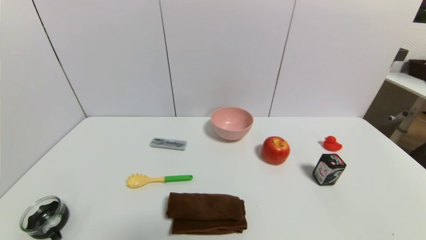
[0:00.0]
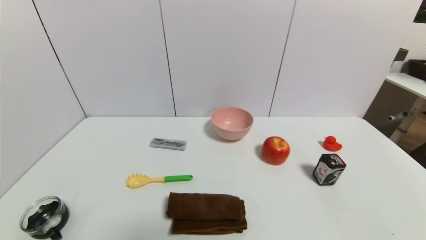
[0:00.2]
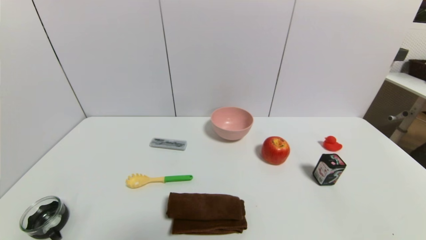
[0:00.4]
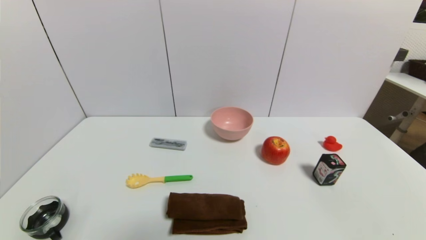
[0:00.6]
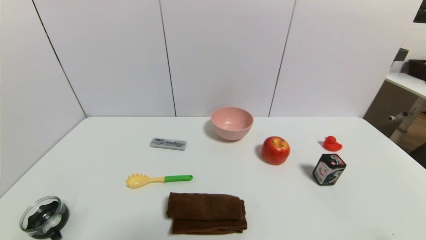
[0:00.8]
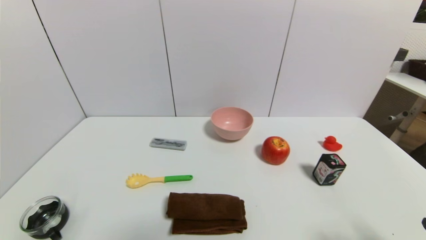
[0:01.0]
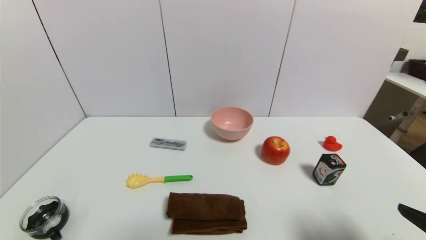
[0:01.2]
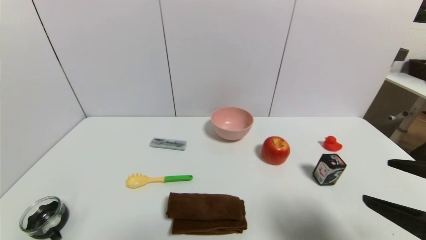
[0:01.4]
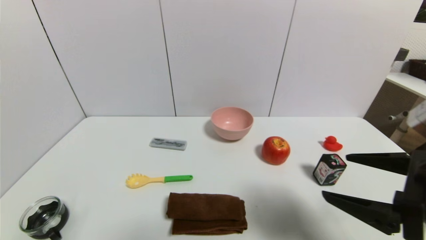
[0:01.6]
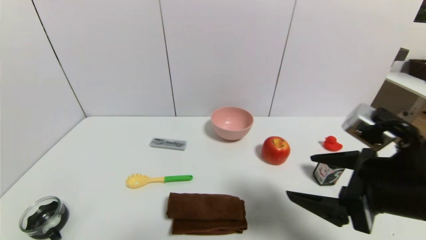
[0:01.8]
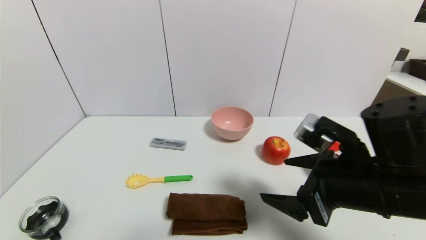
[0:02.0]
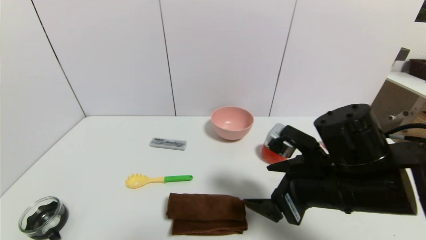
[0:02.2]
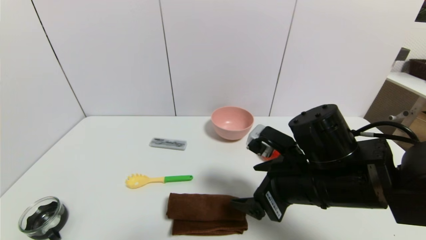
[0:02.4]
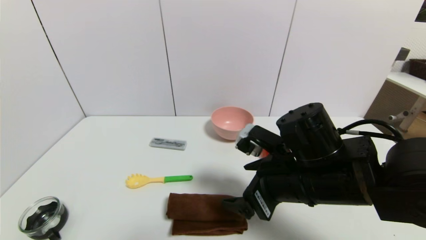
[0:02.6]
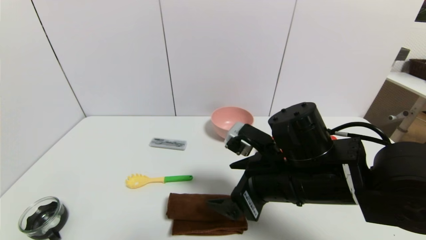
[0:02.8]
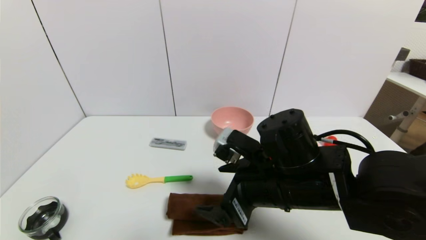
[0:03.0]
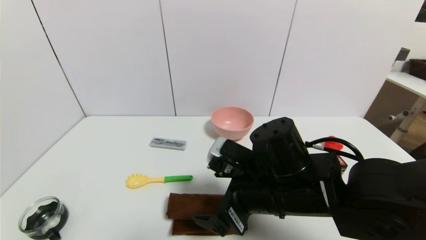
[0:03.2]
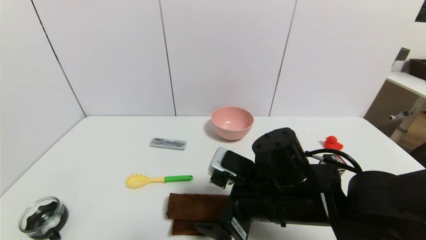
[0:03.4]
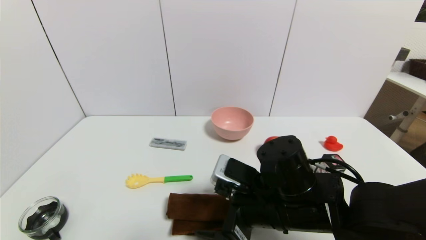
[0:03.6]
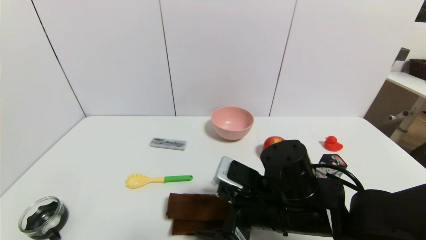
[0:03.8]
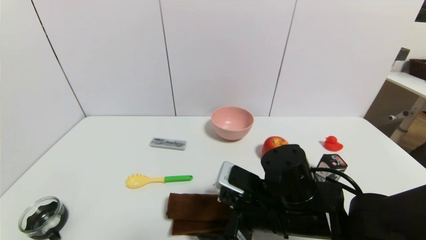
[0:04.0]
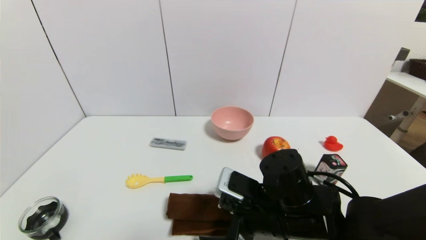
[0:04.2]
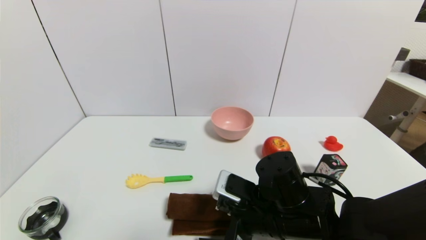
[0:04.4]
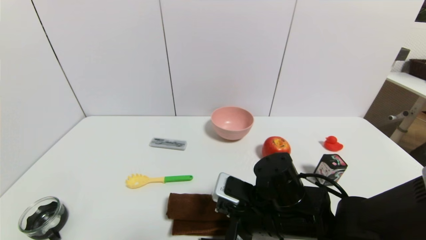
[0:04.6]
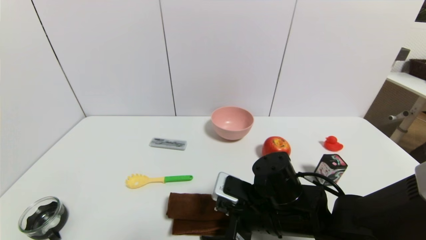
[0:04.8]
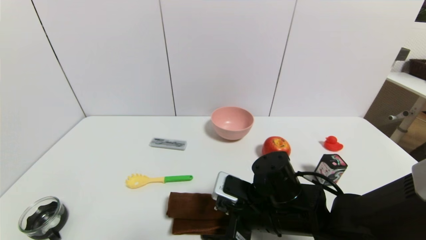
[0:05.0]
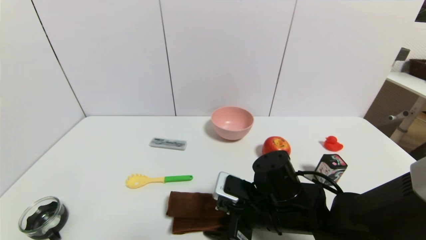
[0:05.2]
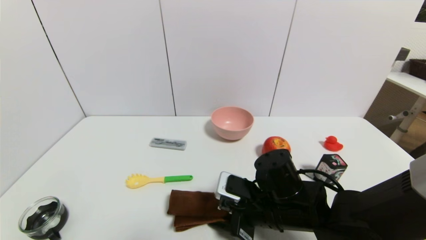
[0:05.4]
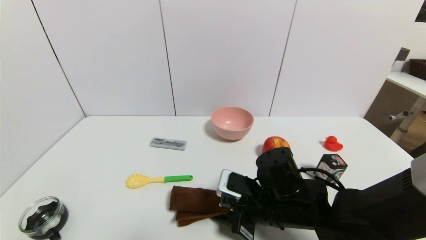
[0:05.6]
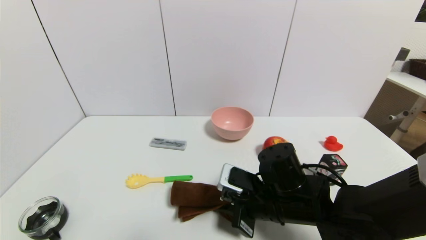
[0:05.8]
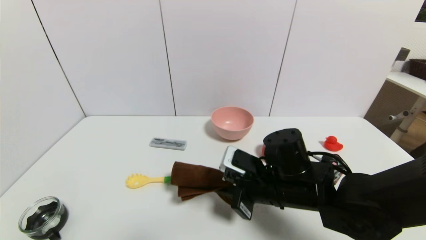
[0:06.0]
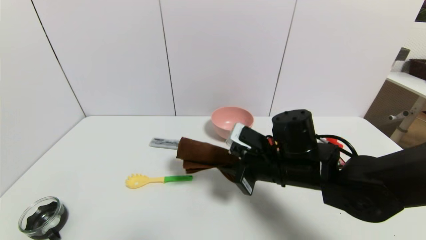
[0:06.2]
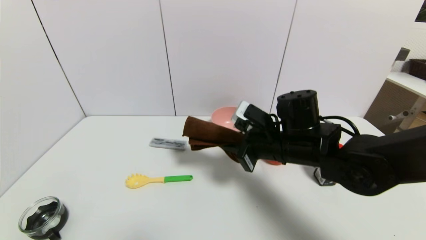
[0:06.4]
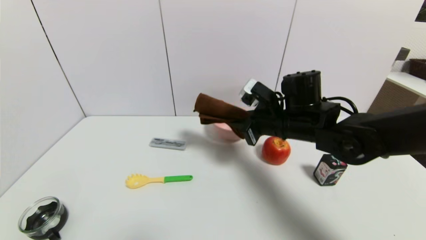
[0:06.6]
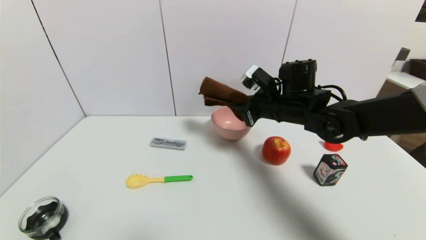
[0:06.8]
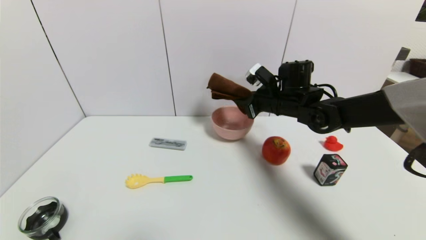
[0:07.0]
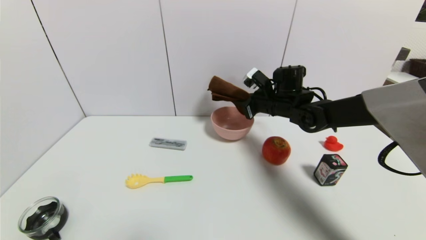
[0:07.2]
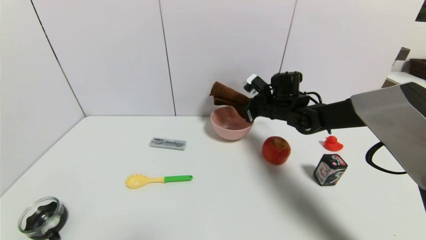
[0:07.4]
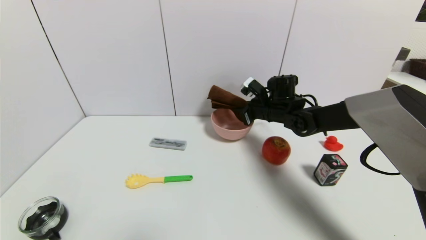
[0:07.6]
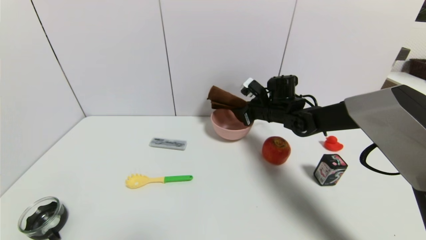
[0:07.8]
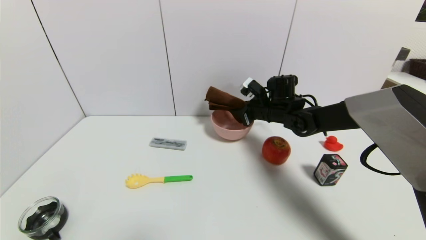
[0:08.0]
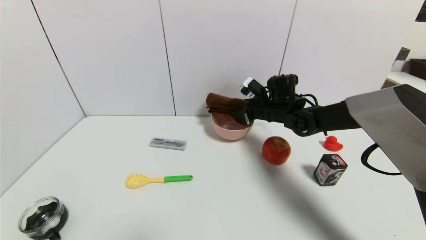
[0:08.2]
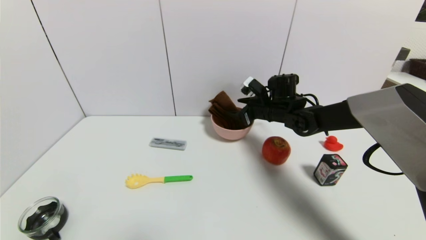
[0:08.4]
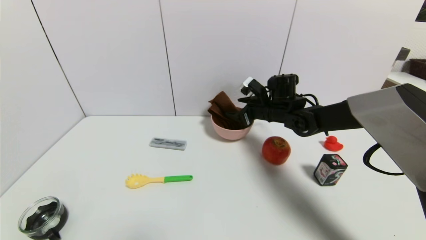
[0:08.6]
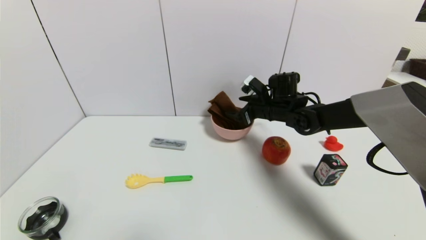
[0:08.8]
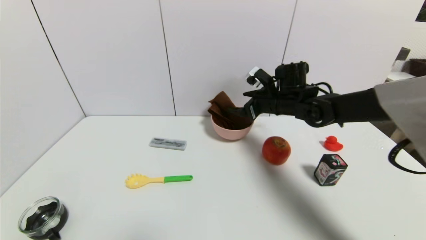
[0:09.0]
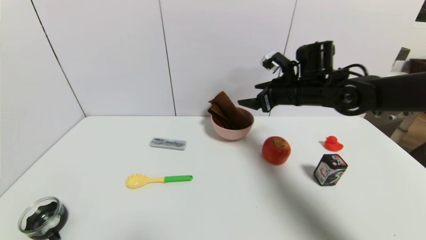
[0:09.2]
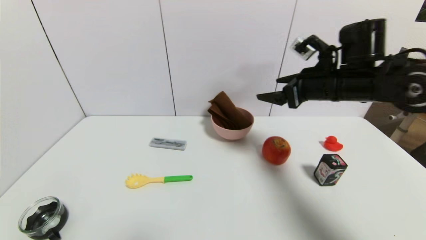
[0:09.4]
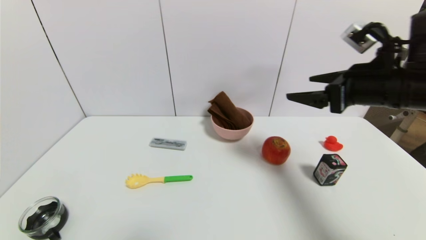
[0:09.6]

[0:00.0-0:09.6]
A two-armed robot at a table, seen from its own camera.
Task of the whole recording: use a gripper to pick the target object and place on the pink bowl.
Step, 0:00.0 to 0:05.6: Grasp the brown towel with the right gripper.
Step, 0:05.8 to 0:08.6: Place the brown towel on the pink bowl with the right gripper.
0:00.0 to 0:01.6: The right gripper travels upward, forward and to the left by about 25 cm.
0:01.6 to 0:03.2: The right gripper goes some 20 cm to the left, forward and downward.
0:03.2 to 0:04.8: The right gripper shifts roughly 5 cm downward.
0:04.8 to 0:06.4: The right gripper goes about 10 cm forward and upward, and closes its fingers.
0:06.4 to 0:08.0: The right gripper travels forward by approximately 15 cm.
0:08.0 to 0:09.6: The right gripper shifts roughly 25 cm backward, upward and to the right, and opens.

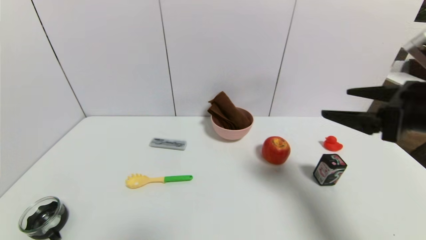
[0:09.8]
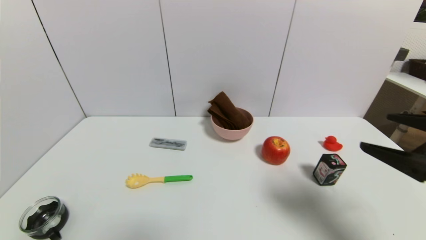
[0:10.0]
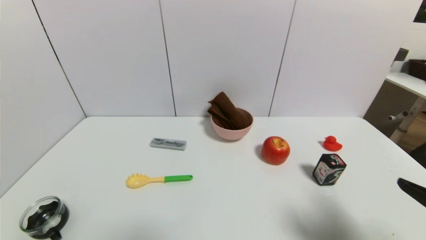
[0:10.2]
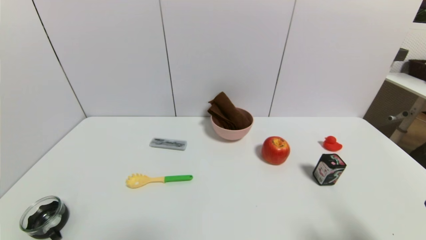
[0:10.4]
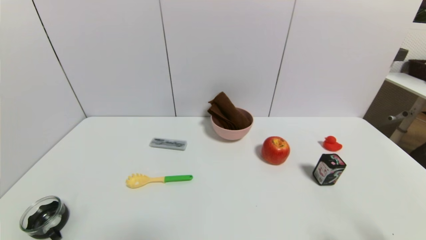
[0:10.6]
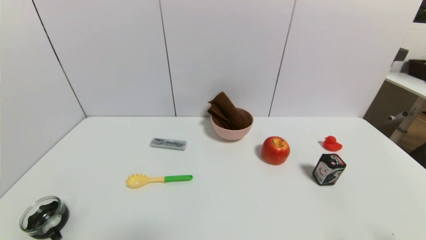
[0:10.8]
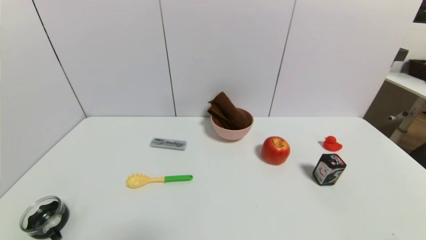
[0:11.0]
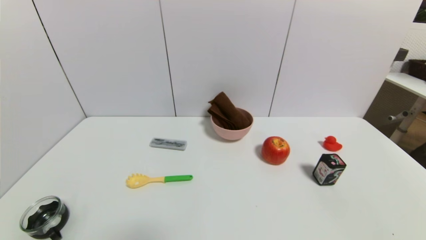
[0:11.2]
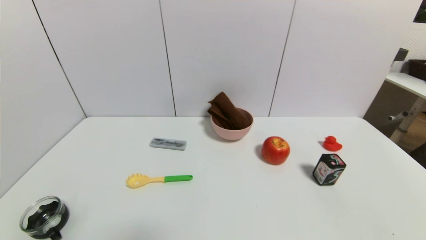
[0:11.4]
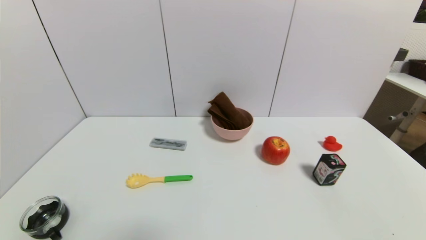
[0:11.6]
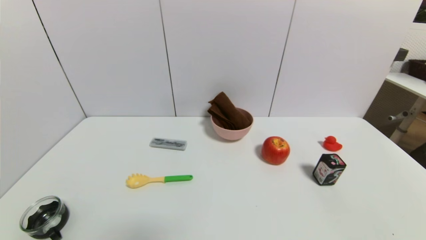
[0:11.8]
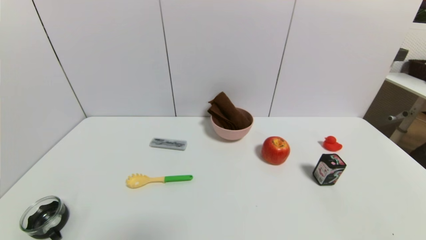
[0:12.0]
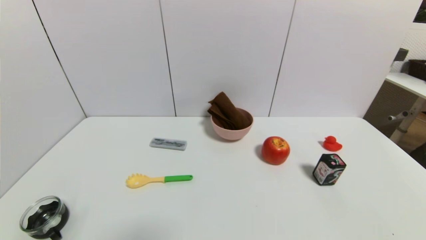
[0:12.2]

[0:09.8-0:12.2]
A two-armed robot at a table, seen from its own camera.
Task of the whole recording: use a gripper to pick the target object and place on the pink bowl.
0:09.8 to 0:11.0: The right gripper heads backward and downward, covering about 25 cm.

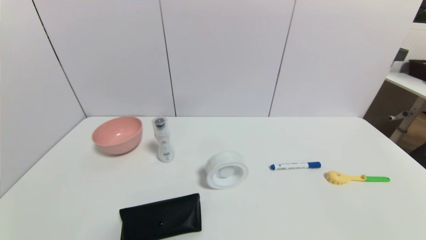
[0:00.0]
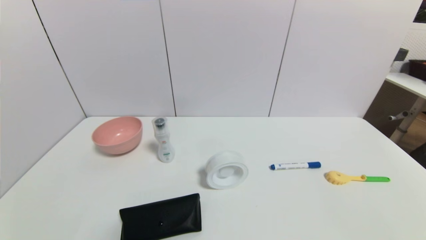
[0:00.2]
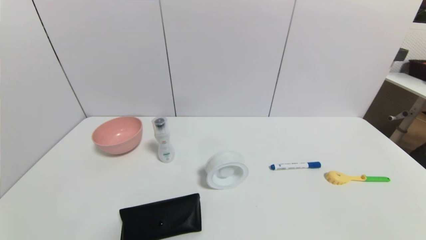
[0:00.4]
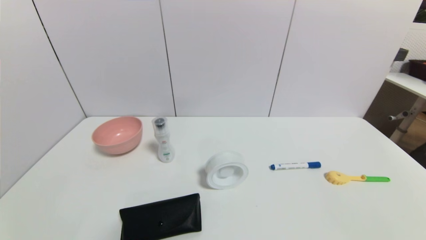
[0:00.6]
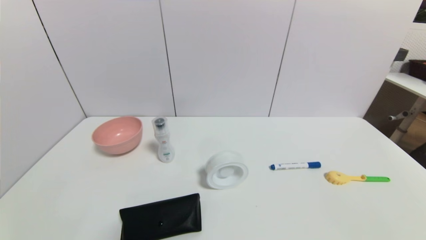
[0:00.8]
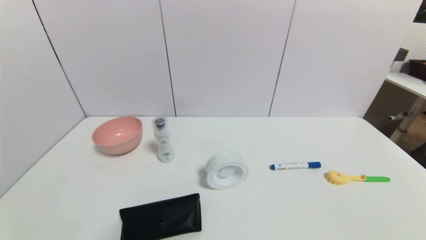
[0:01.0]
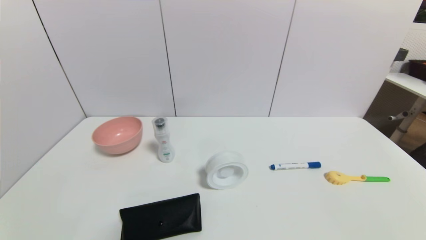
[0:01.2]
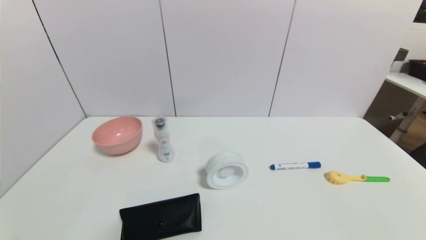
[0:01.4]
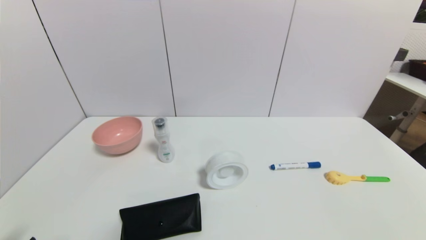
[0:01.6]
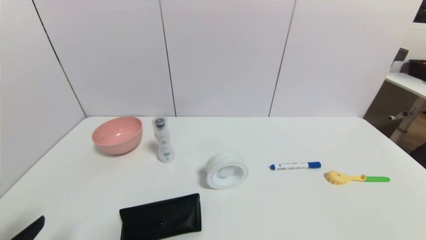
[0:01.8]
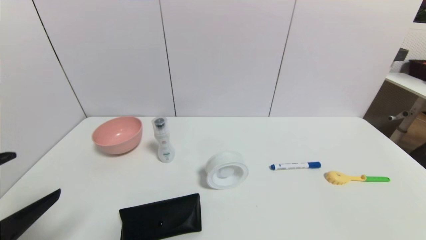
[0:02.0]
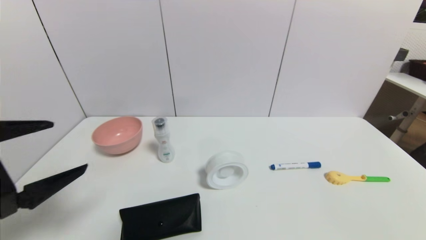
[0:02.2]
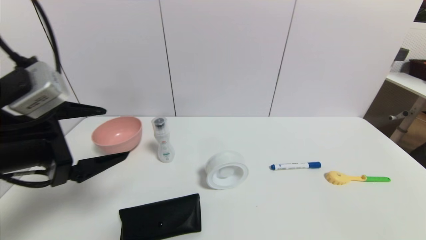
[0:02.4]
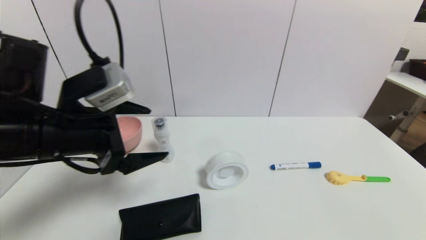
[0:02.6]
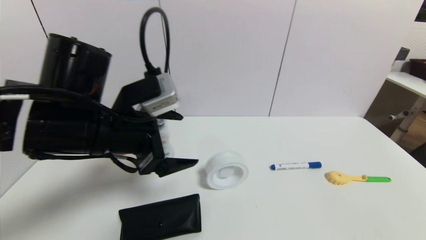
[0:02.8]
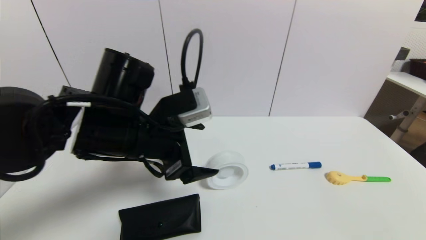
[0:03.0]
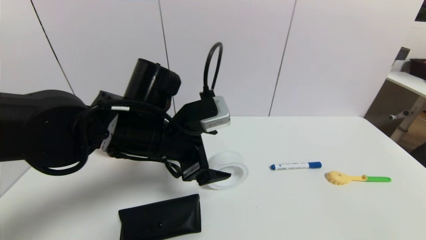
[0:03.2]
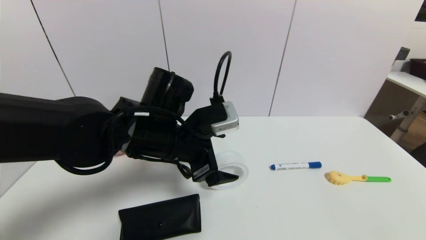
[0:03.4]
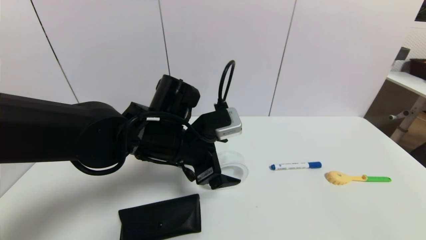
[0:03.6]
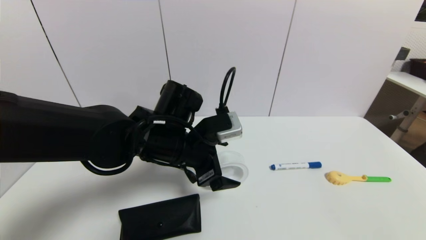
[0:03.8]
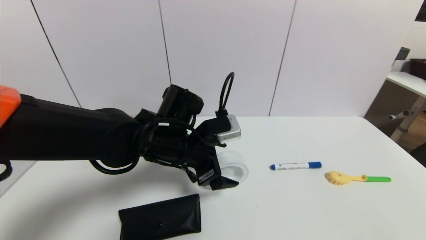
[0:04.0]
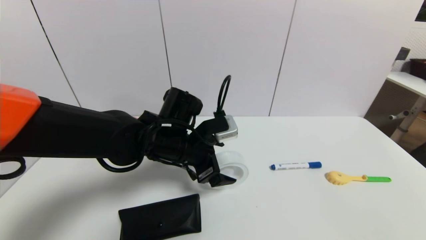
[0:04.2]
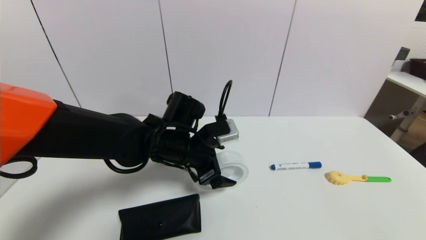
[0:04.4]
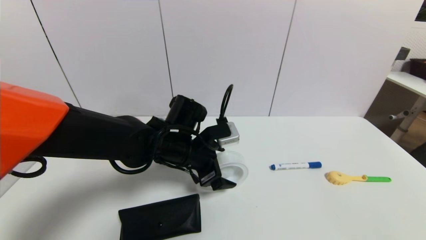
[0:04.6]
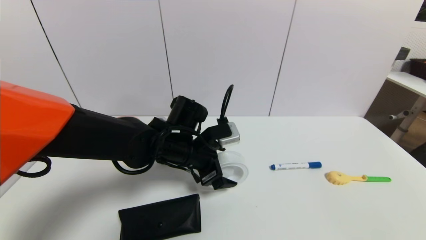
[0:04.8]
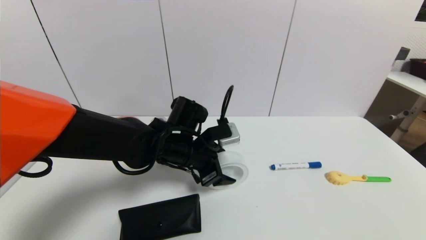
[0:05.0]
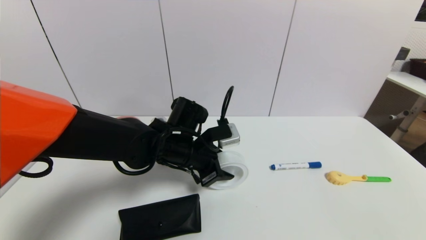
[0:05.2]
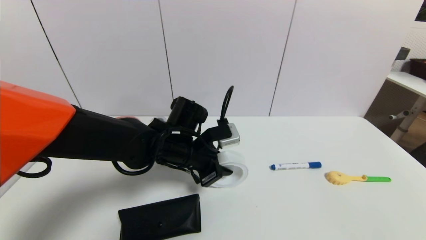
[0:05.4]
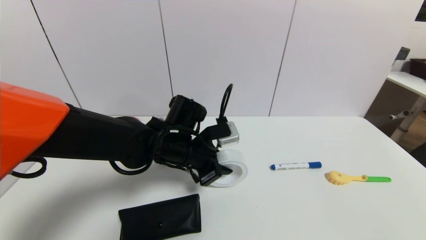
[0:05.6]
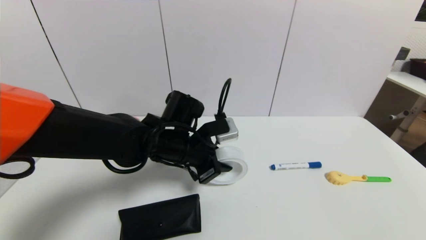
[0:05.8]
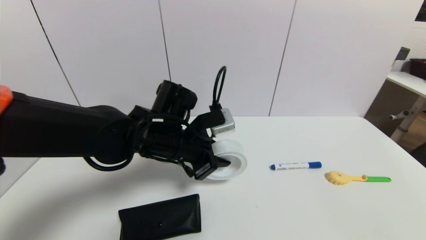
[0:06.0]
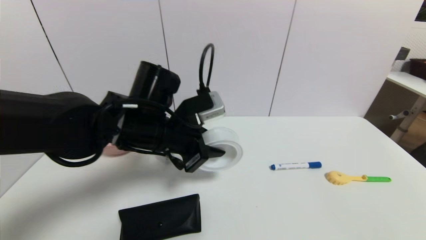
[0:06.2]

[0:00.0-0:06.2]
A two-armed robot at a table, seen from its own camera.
Task of the whole recording: use a gripper to pick the target object and place on the pink bowl.
Step, 0:00.0 to 0:05.4: Grasp the tape with the left gripper.
0:01.6 to 0:03.2: The left gripper goes approximately 30 cm forward and to the right.
0:03.2 to 0:04.6: The left gripper shifts some 10 cm downward and forward.
0:04.6 to 0:06.2: The left gripper heads upward, covering approximately 5 cm, and closes.
